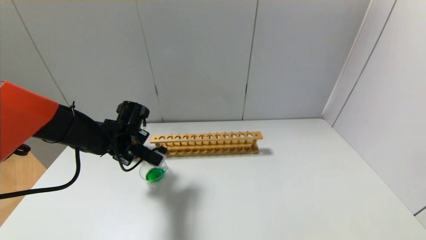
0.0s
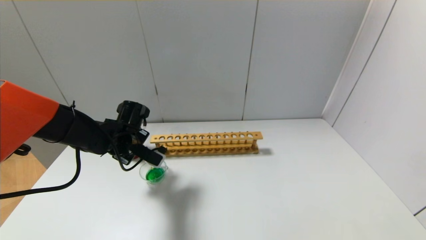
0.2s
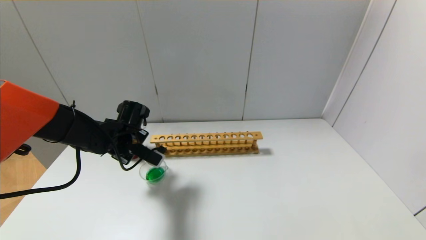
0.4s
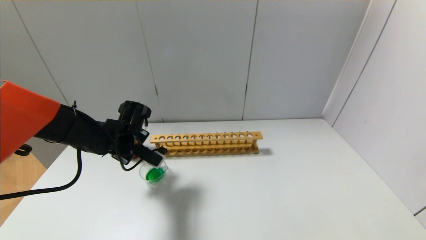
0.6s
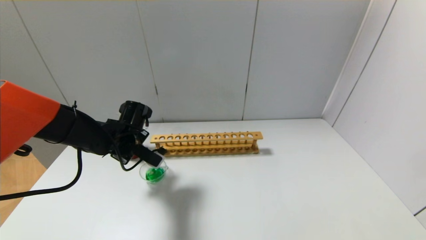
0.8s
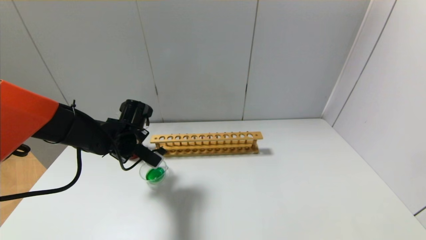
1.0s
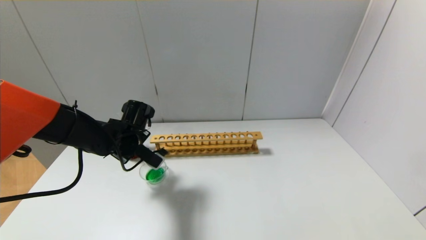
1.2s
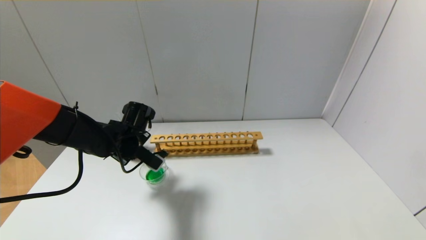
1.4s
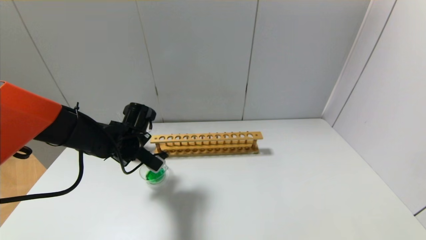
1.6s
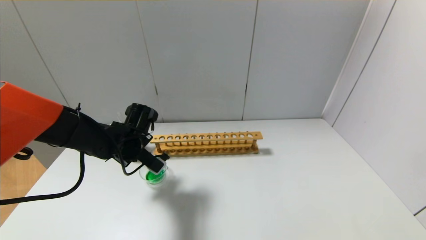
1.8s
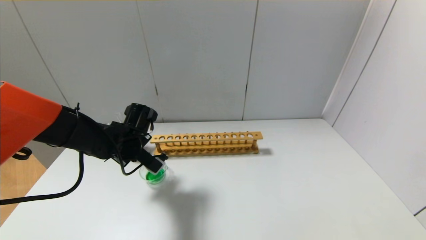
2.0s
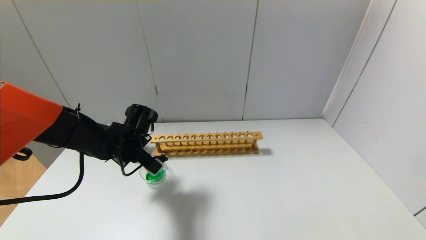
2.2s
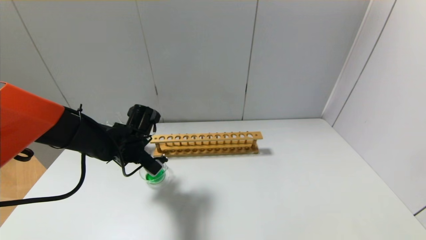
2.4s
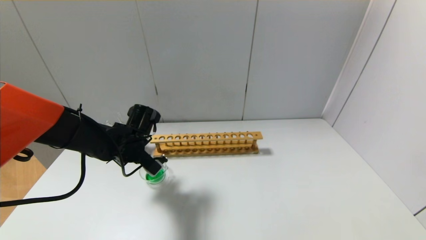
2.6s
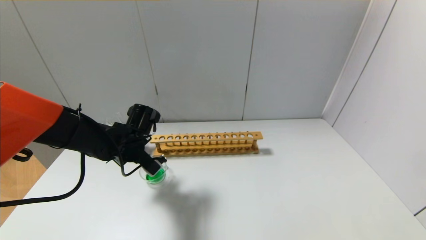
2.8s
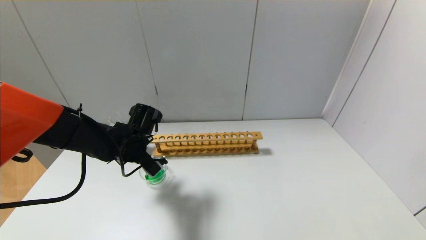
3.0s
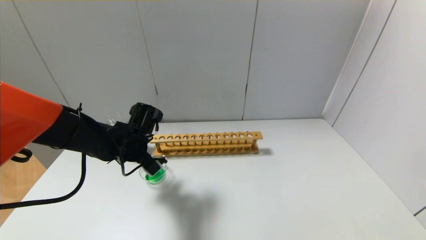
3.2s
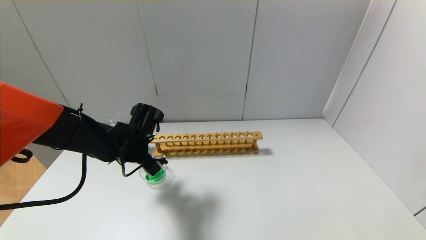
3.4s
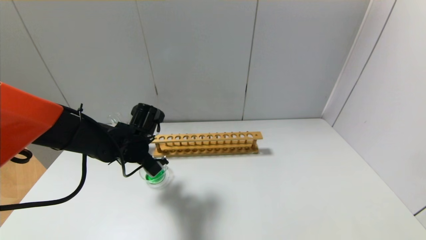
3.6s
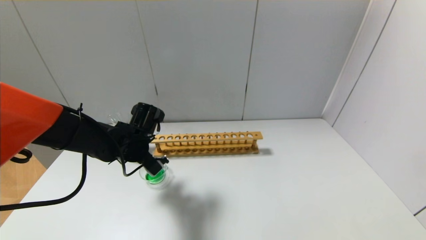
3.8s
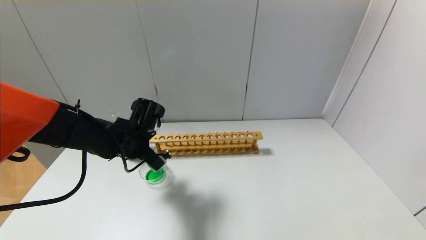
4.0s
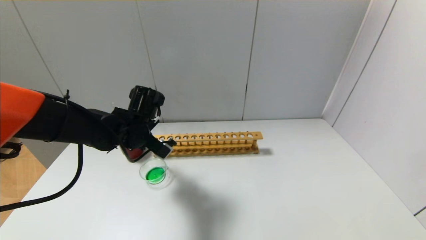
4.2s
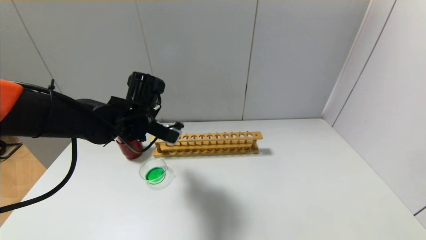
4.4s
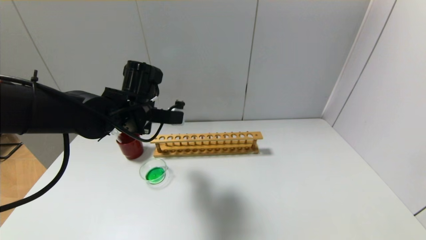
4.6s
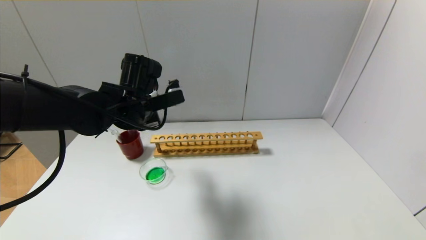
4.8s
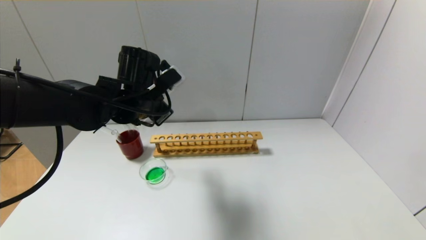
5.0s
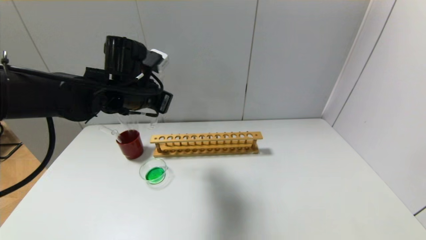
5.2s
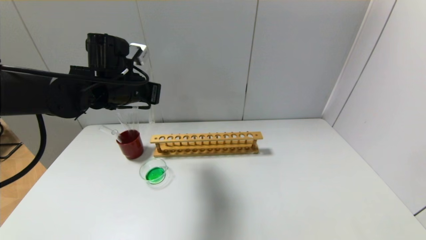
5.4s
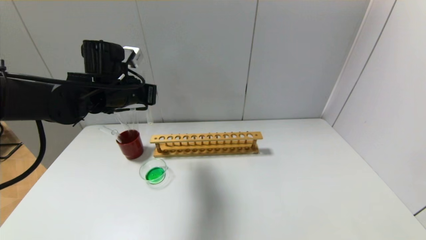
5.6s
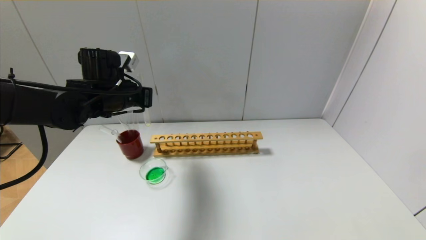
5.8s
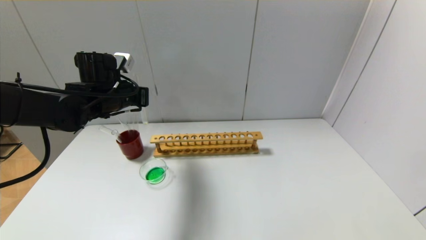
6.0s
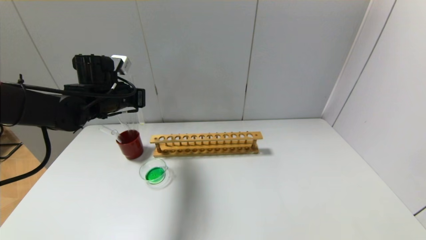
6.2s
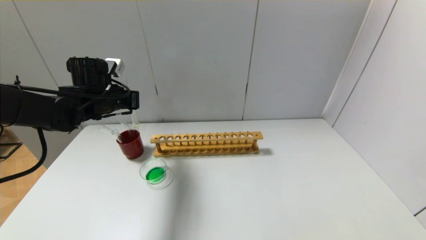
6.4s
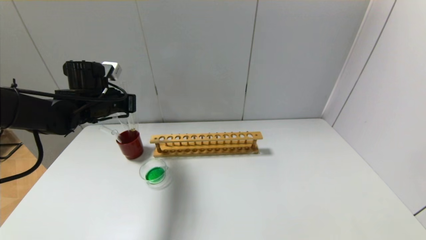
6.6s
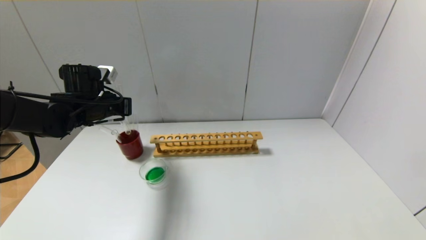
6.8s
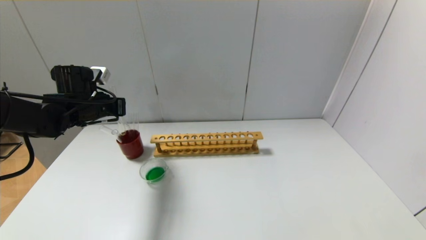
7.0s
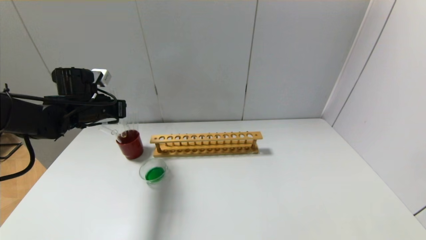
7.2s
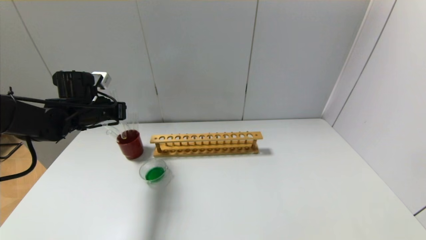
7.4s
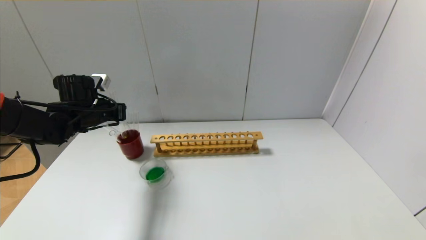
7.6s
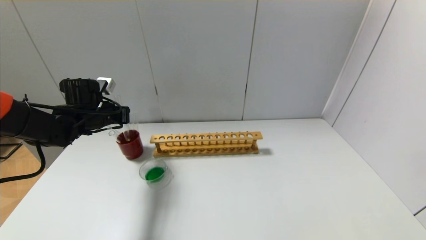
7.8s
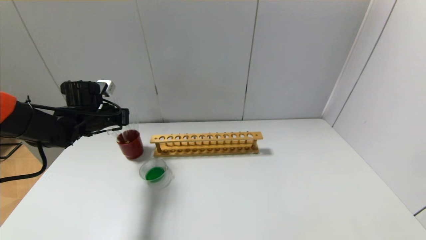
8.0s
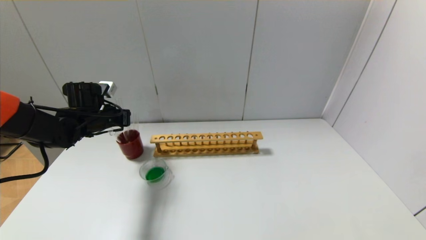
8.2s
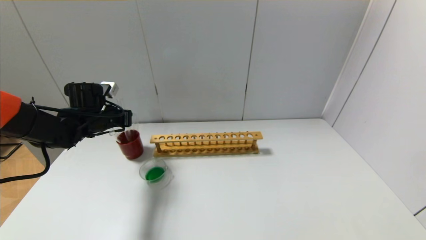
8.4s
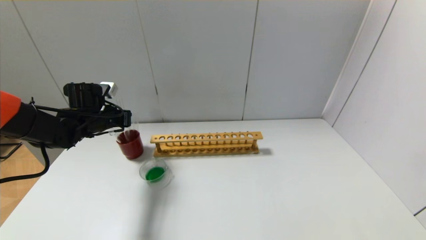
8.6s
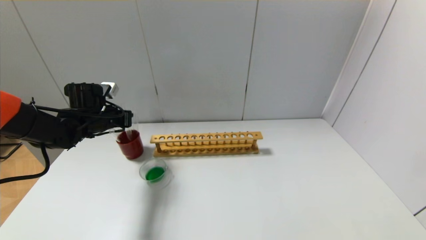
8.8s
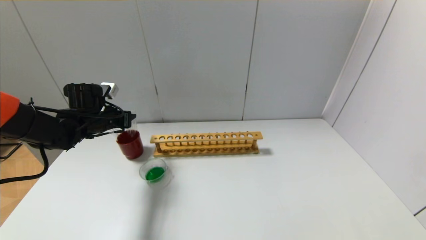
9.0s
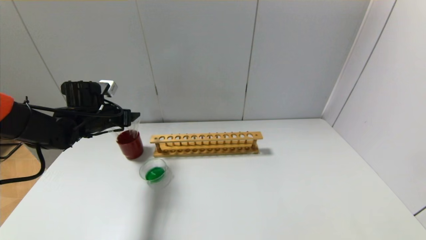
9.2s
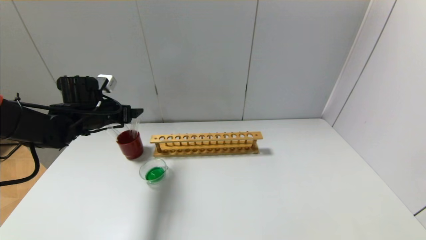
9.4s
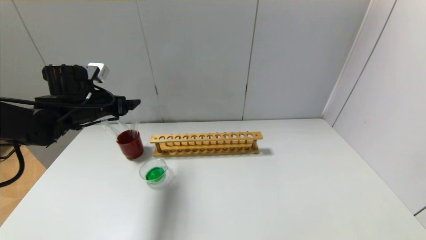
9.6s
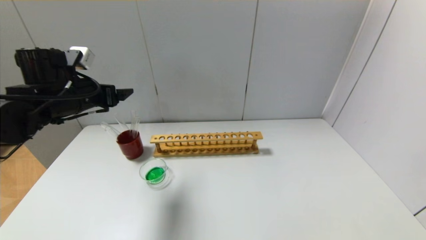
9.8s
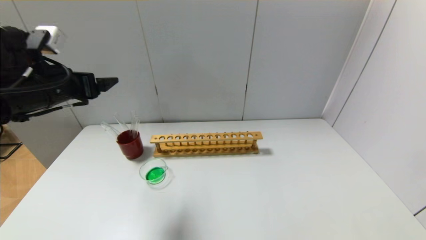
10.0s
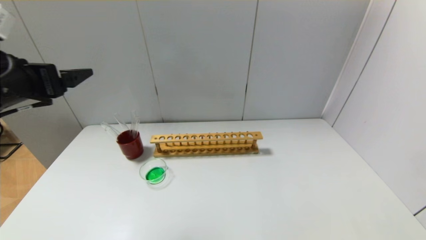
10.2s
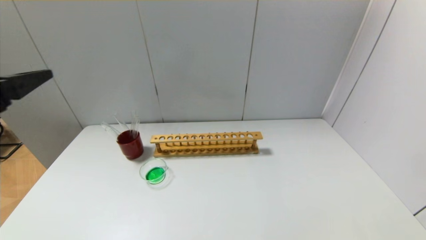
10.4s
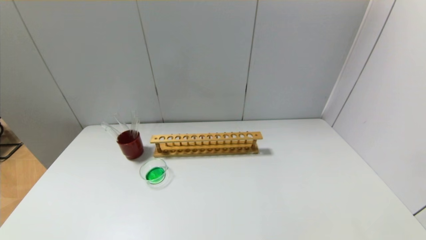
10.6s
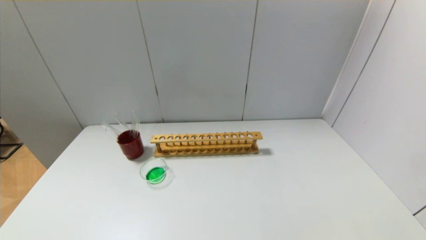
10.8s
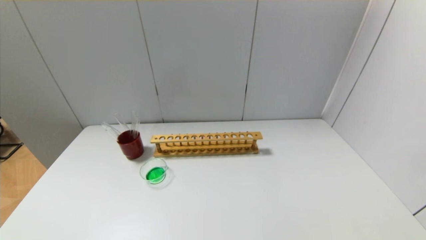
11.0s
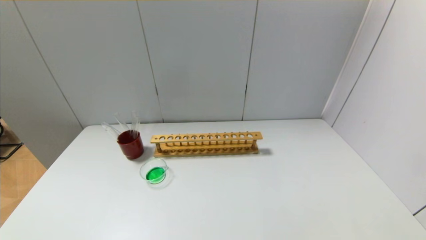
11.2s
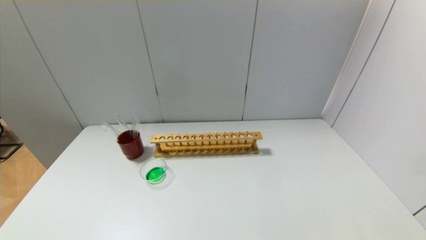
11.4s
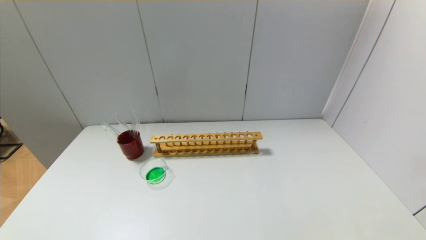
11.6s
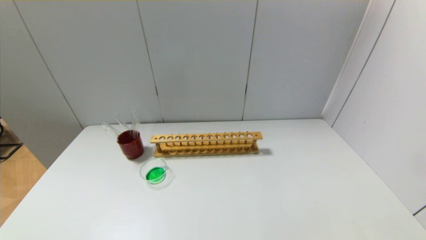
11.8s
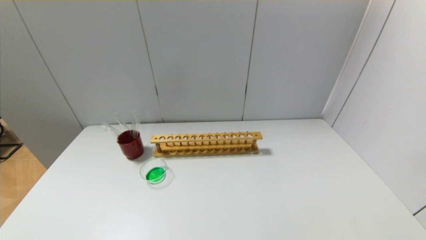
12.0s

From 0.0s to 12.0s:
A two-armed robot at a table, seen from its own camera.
Step, from 0.0s to 3.8s: Pour the yellow reagent into the graduated cylinder with the left gripper.
Step, from 4.0s to 8.8s: Place the test tube into the brown cup with the left gripper.
From 0.0s to 1.6s: There are only small adjustments of the grippers.
From 1.6s to 3.0s: The grippers make only small movements.
From 3.0s to 4.4s: The left gripper travels upward by approximately 10 cm.
From 4.4s to 6.0s: The left gripper is displaced to the left by approximately 5 cm.
From 6.0s to 7.6s: The left gripper travels to the left by approximately 5 cm.
From 7.6s to 9.0s: The left gripper opens.
From 9.0s to 10.4s: The left gripper moves backward and upward, approximately 30 cm, and opens.
From 10.4s to 12.0s: The left gripper moves downward and backward, approximately 30 cm.

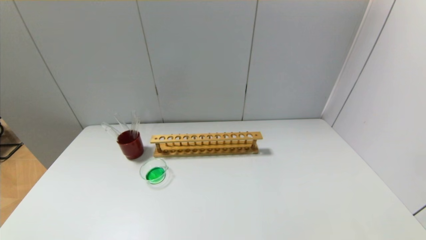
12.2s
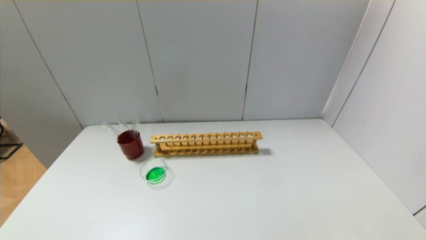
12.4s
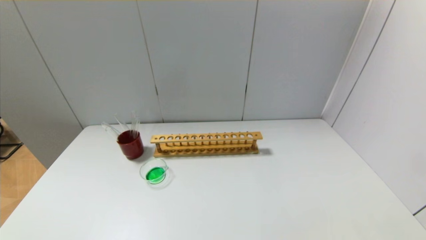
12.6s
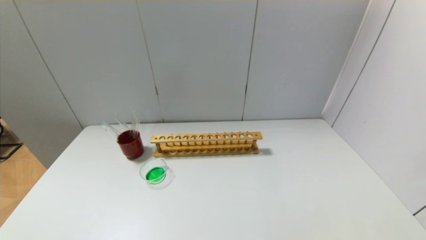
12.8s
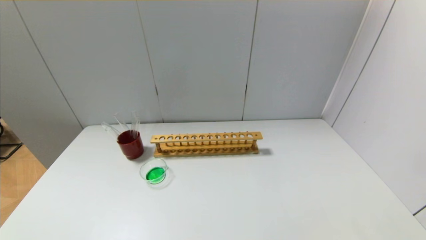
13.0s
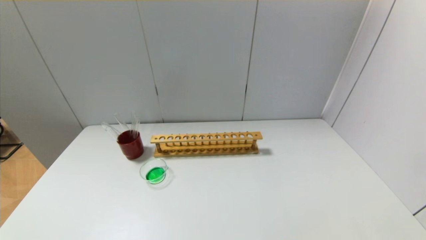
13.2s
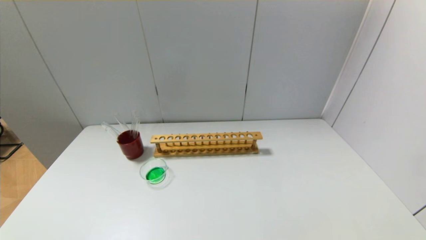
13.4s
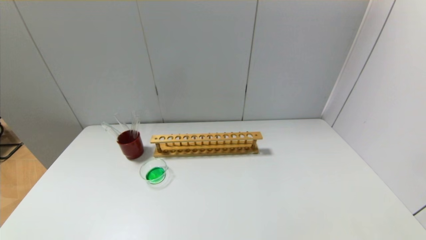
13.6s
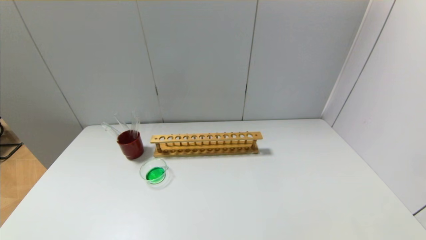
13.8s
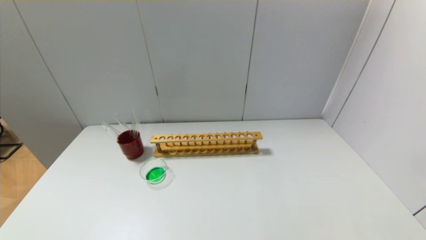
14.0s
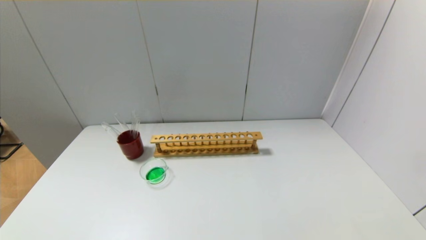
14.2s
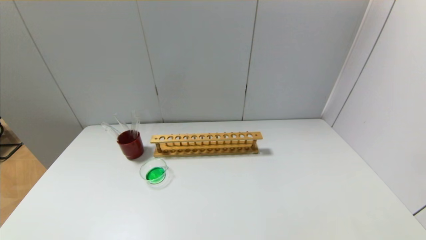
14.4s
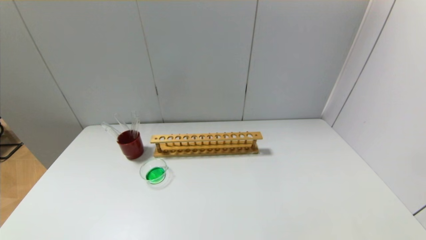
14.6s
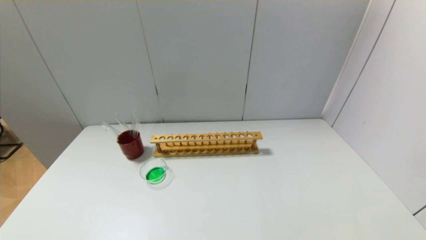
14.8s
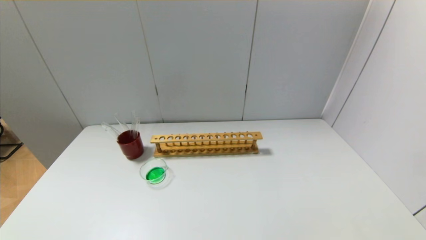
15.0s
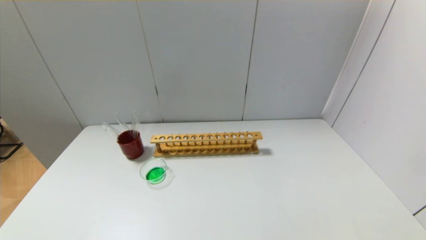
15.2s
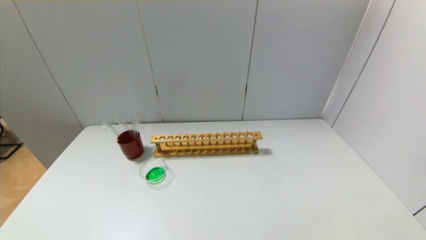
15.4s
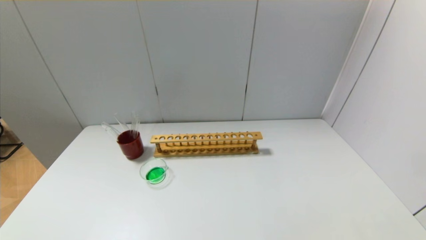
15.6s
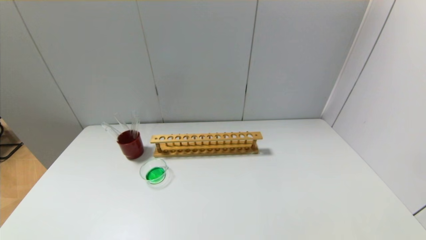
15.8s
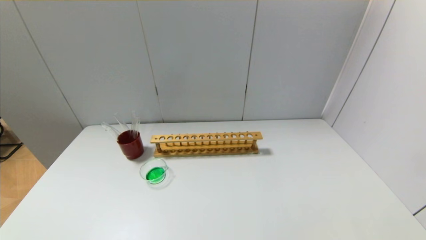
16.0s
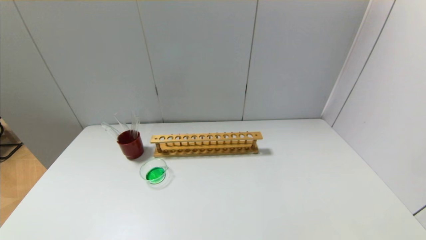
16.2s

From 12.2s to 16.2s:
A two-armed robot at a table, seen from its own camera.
From 12.2s to 16.2s: Both grippers stay put.
